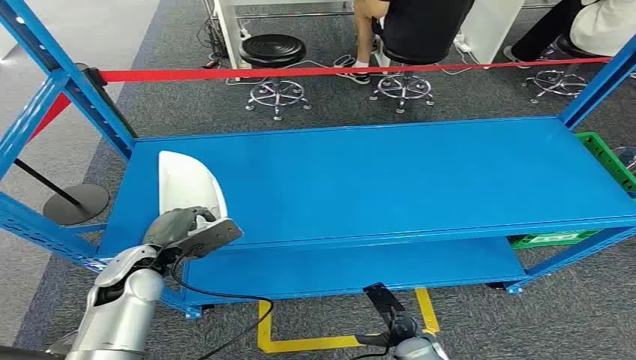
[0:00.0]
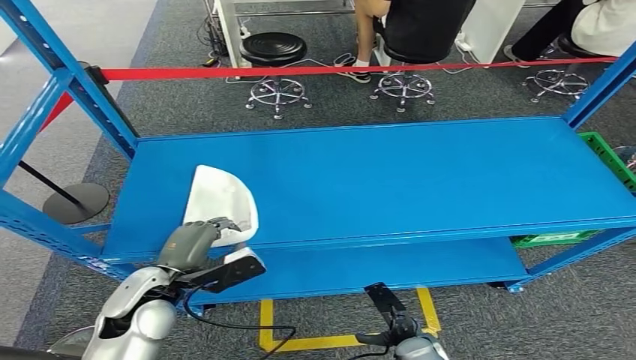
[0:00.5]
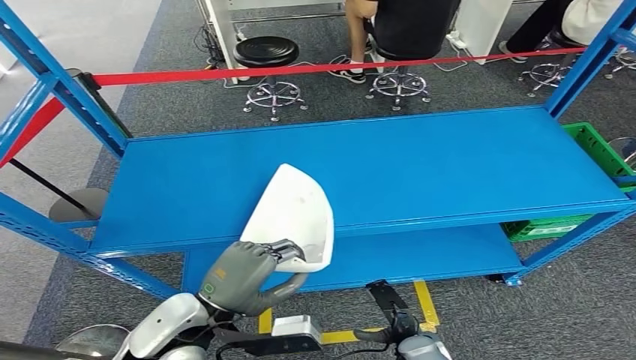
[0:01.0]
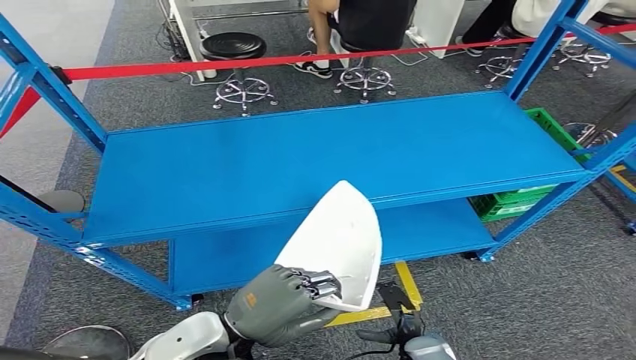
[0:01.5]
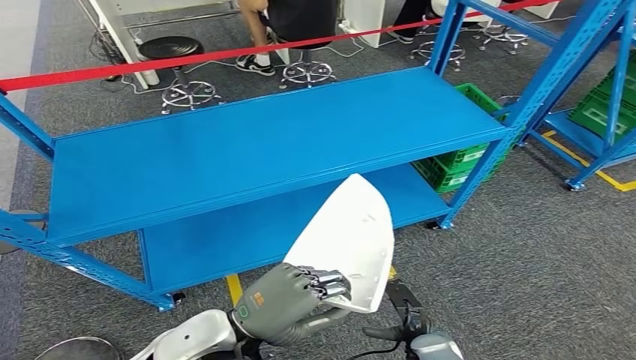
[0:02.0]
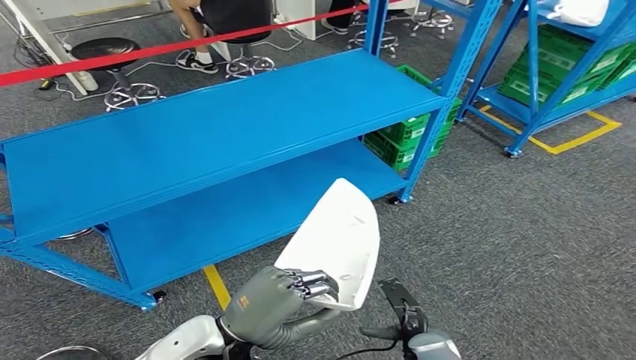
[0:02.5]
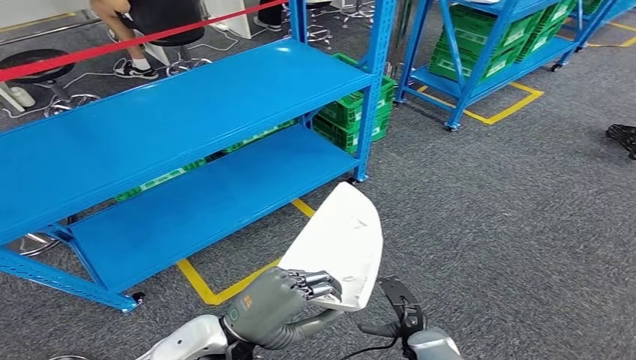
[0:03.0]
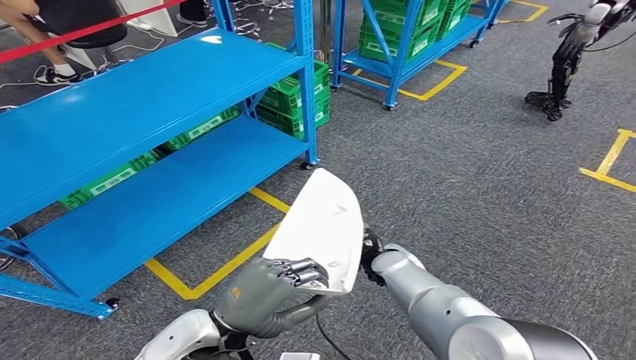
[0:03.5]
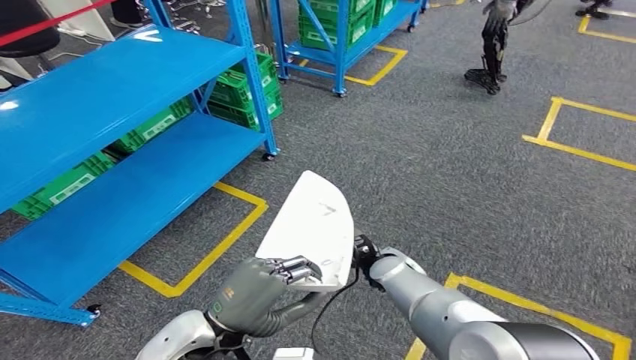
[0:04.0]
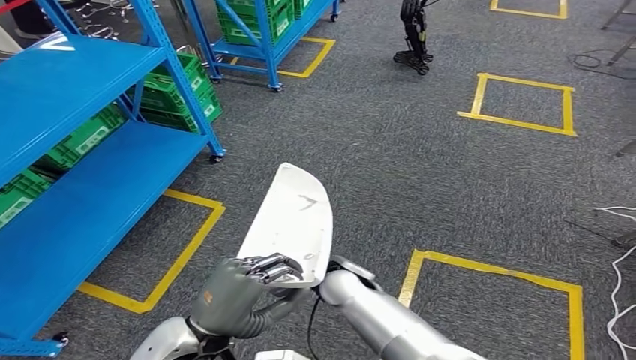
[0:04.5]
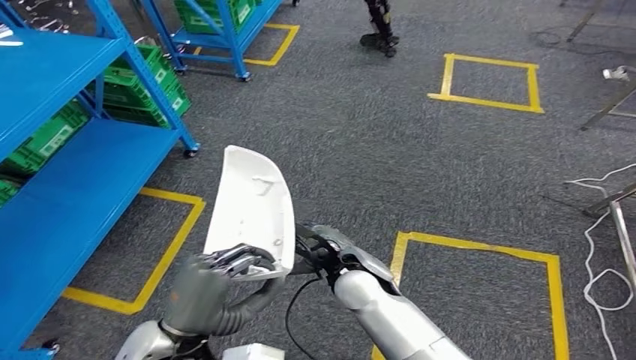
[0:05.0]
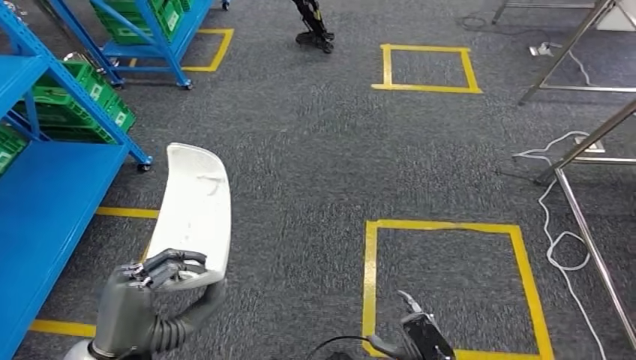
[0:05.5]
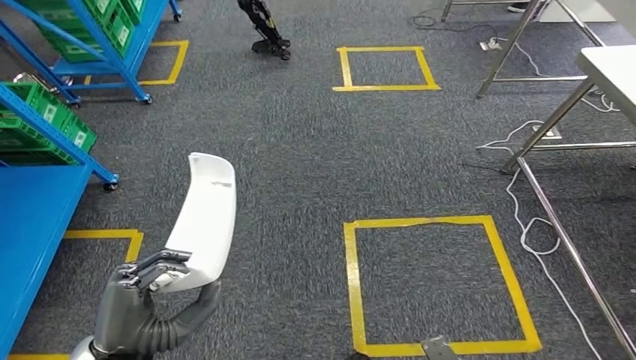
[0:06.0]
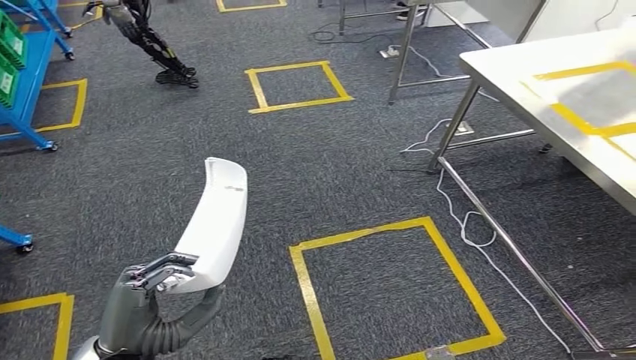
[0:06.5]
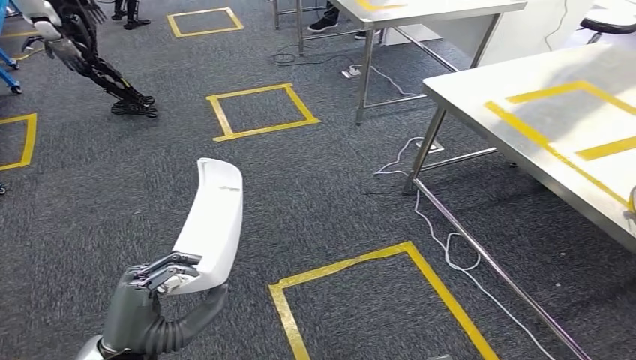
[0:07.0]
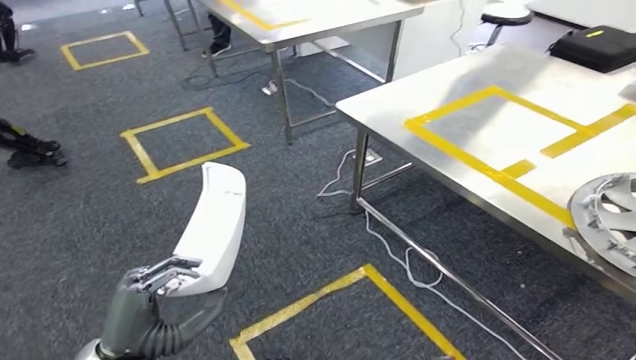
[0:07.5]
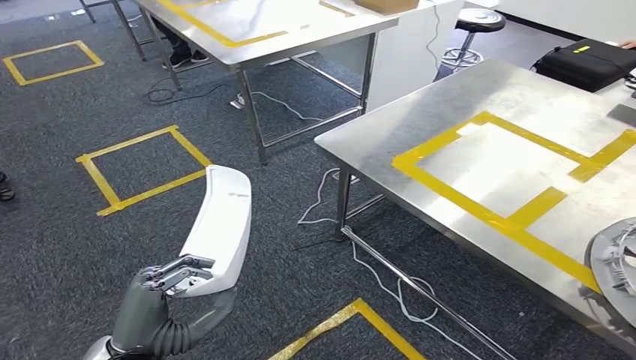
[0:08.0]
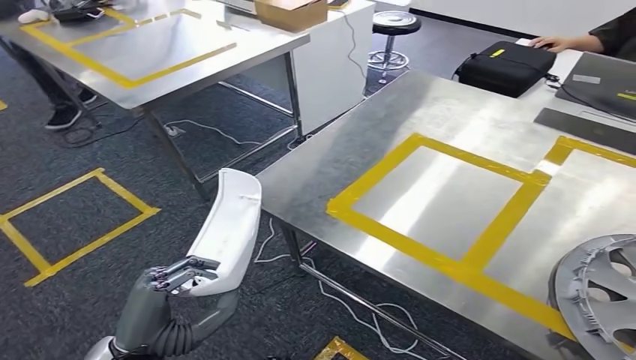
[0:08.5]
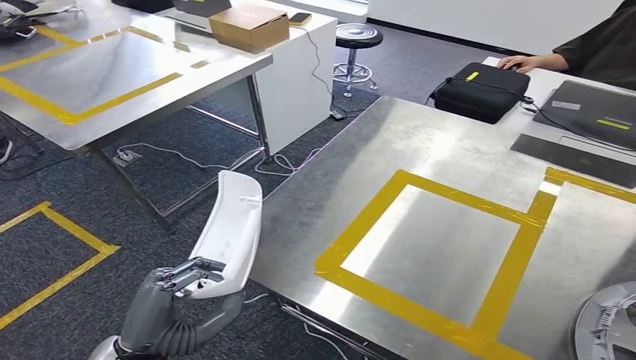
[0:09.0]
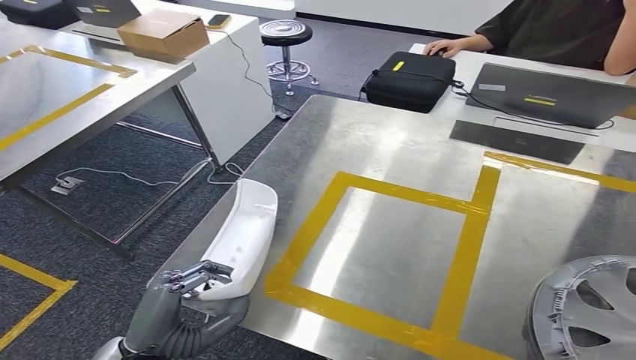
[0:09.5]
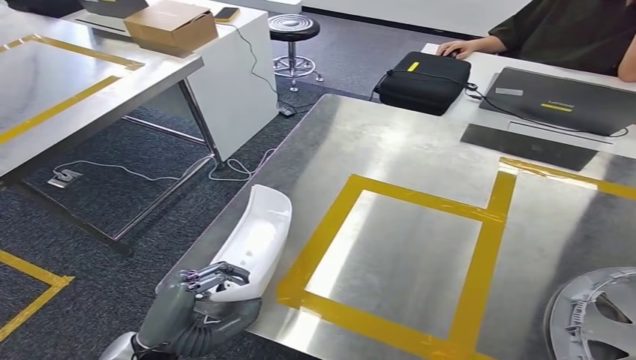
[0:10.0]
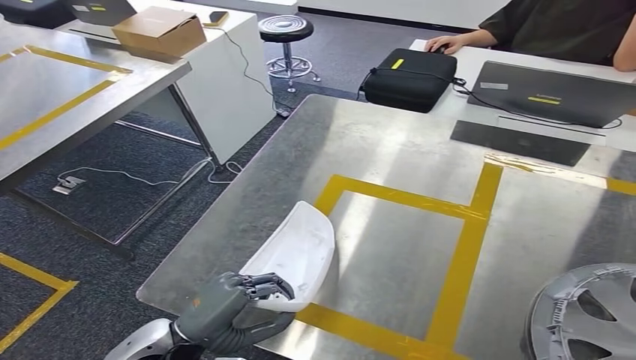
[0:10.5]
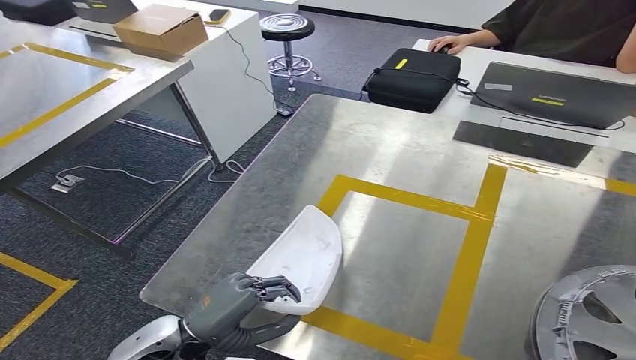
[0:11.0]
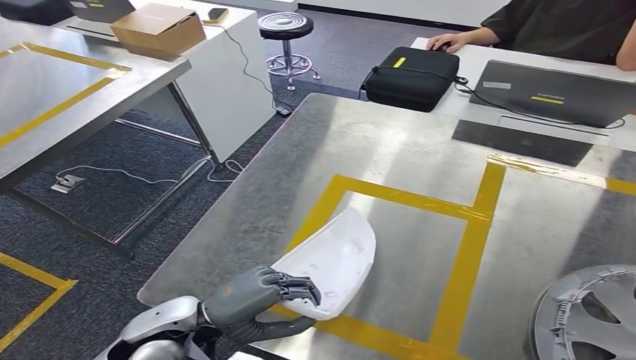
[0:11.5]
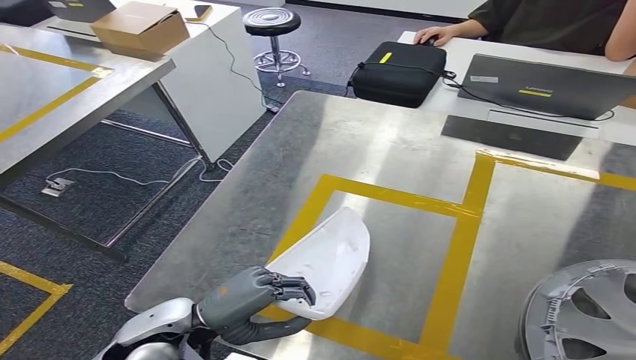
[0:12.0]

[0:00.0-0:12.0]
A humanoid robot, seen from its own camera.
Step, 0:00.0 to 0:02.5: Pick up the small component from the shelf.
Step, 0:03.0 to 0:09.0: Move the small component to the workbench.

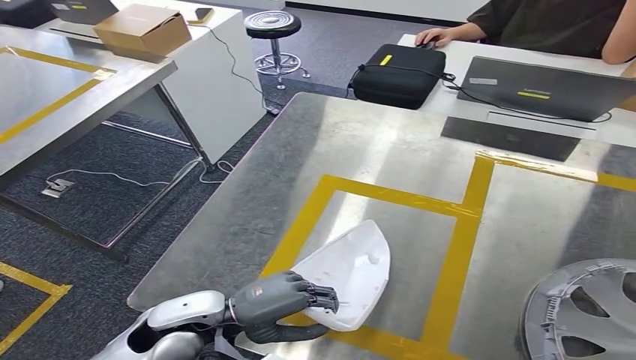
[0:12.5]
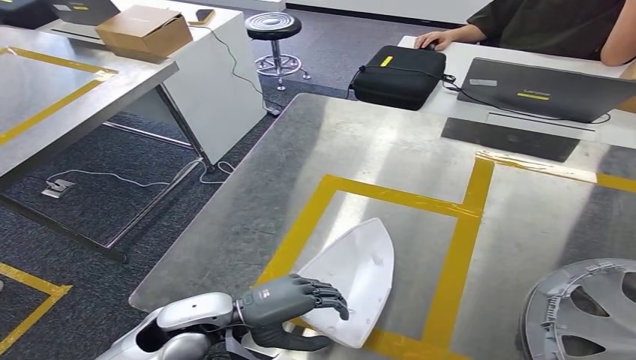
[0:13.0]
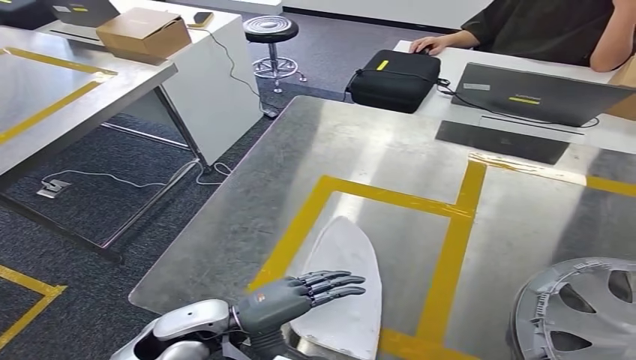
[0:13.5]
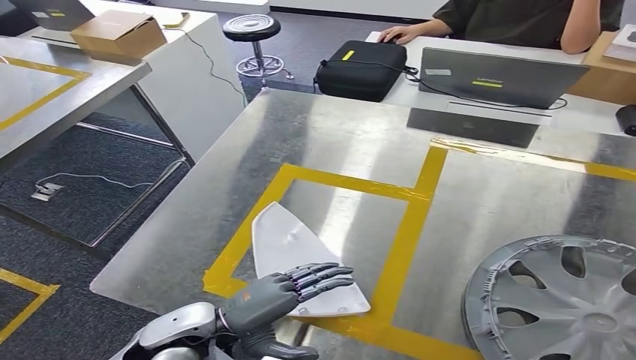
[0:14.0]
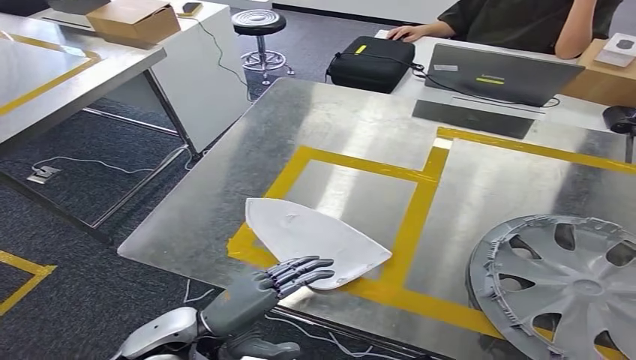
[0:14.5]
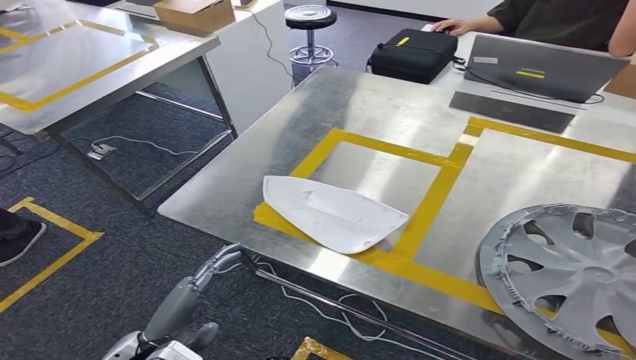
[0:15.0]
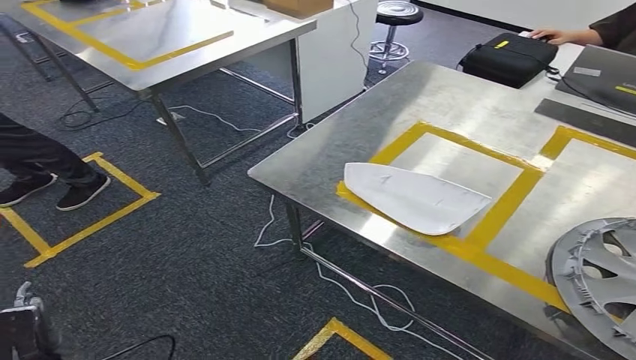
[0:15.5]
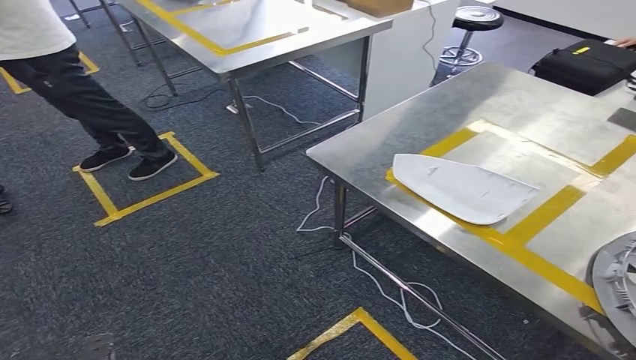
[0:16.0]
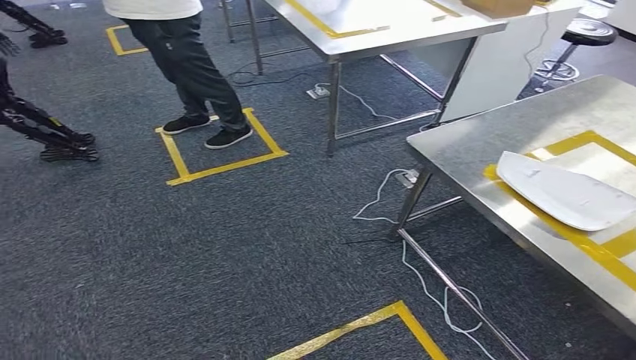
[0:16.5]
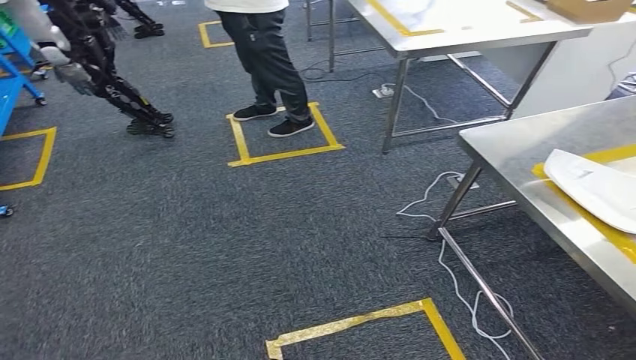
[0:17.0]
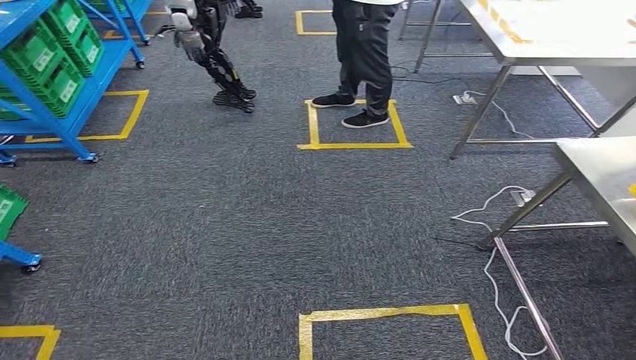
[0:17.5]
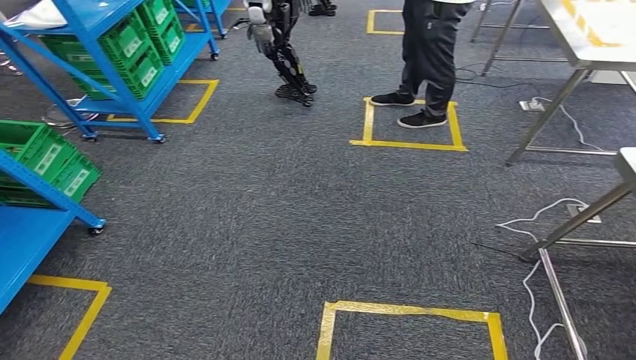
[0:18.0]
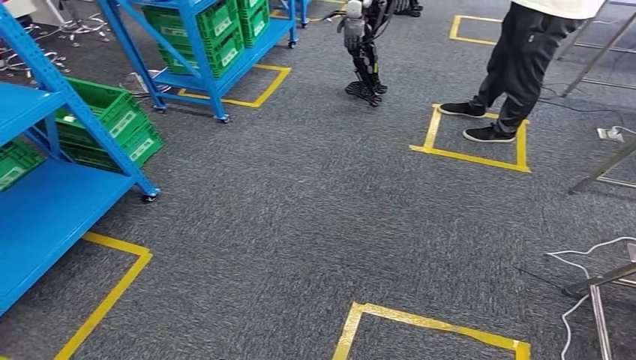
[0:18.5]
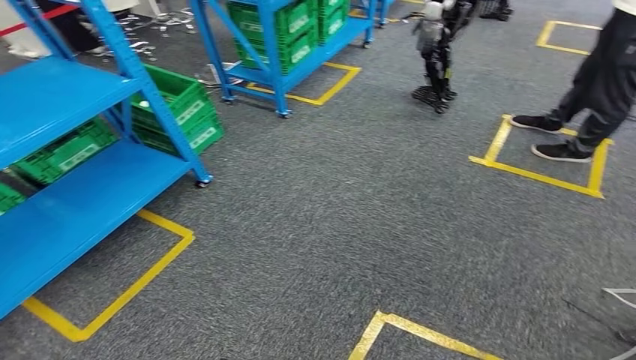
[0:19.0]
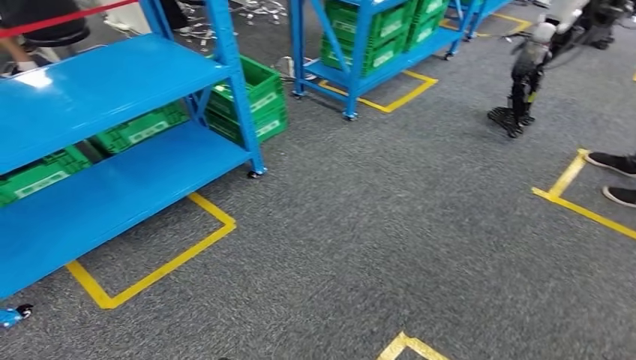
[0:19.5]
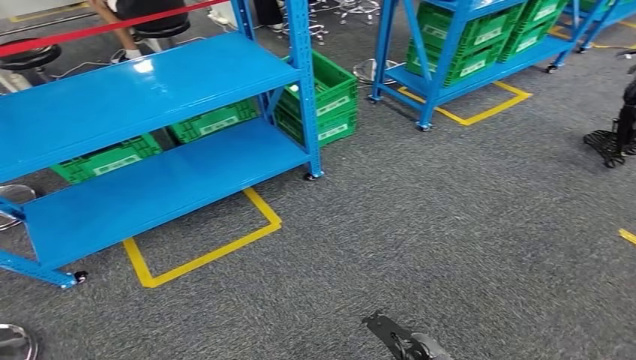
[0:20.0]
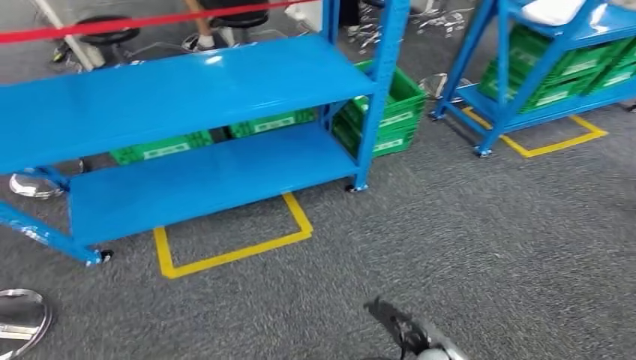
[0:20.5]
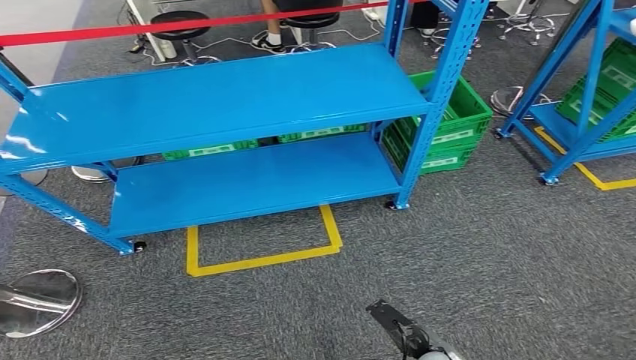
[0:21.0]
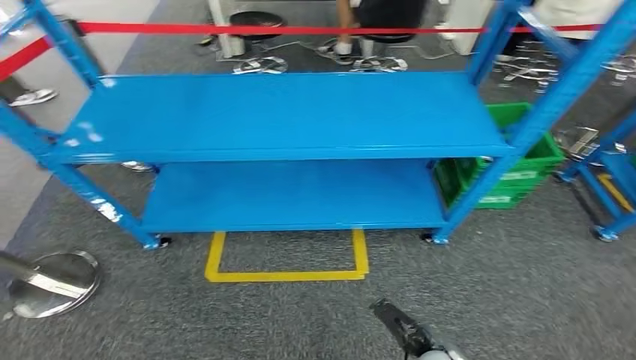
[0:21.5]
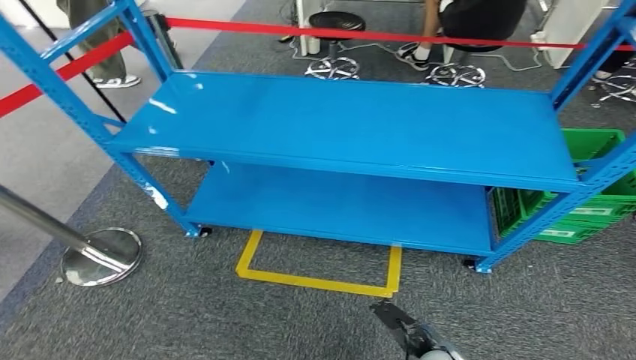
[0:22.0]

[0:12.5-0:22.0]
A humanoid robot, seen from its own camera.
Step, 0:12.5 to 0:15.0: Insert the small component into the corresponding slot on the workbench.
Step, 0:16.0 to 0:22.0: Return to the initial position at the workbench.
